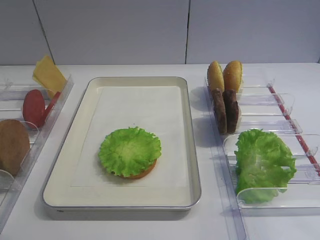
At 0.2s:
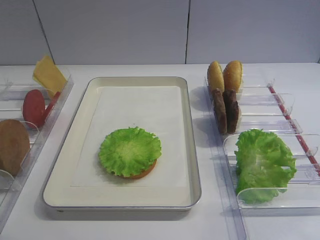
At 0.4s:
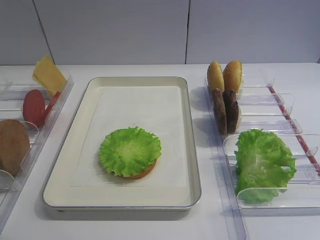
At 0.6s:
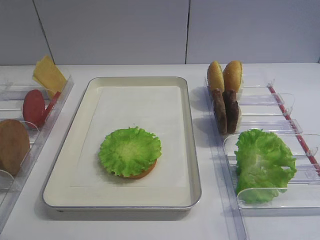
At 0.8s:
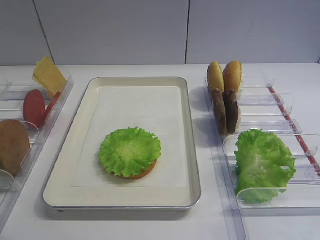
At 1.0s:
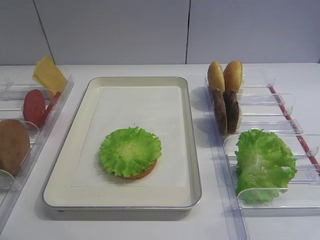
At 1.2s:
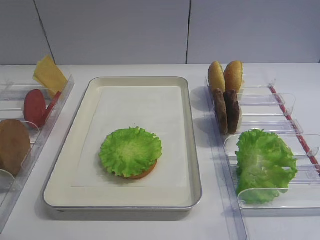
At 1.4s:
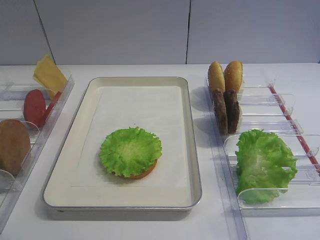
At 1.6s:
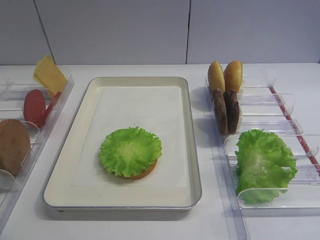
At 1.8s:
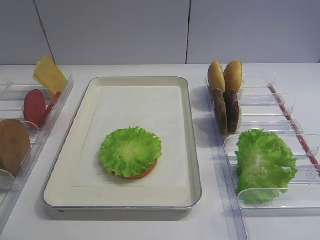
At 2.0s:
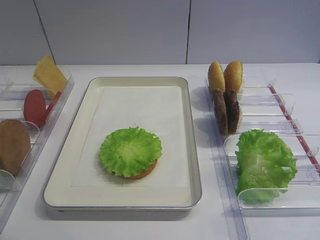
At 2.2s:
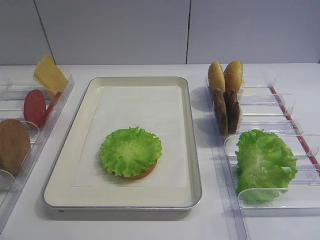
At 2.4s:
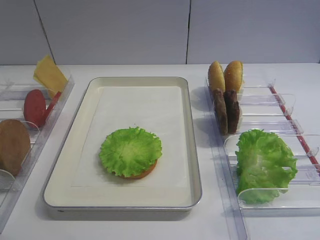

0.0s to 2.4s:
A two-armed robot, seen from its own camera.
0.0s to 1.2s: The right gripper moves downward, roughly 5 cm.
1.2s to 2.4s: Neither gripper changes place.

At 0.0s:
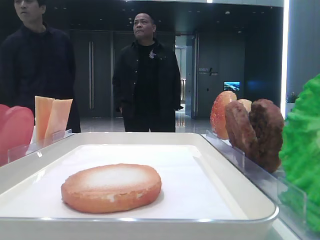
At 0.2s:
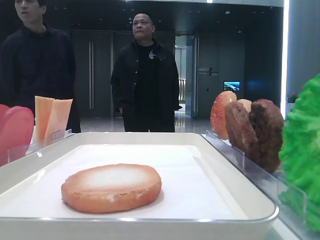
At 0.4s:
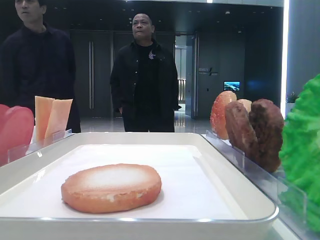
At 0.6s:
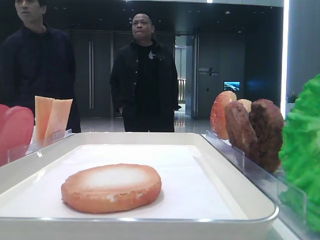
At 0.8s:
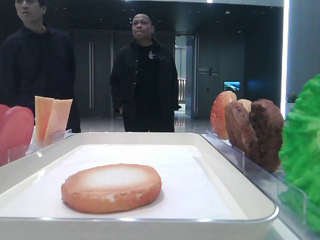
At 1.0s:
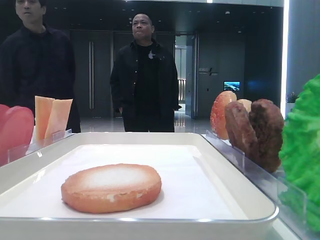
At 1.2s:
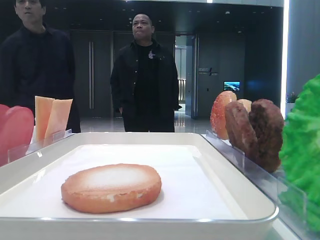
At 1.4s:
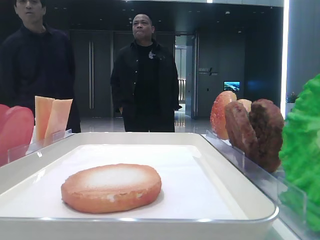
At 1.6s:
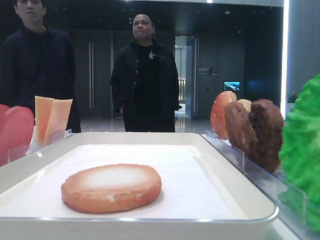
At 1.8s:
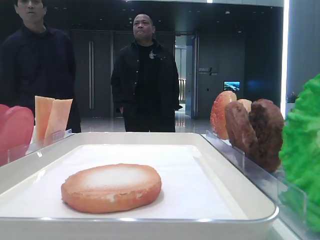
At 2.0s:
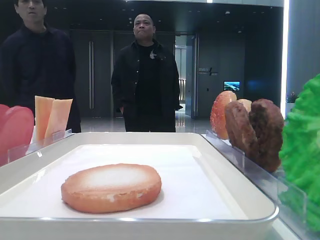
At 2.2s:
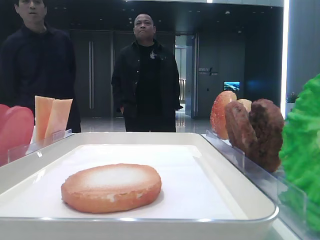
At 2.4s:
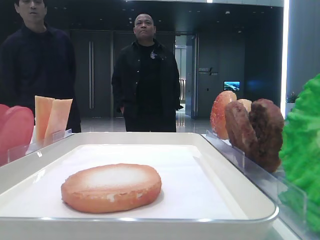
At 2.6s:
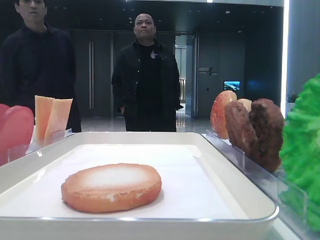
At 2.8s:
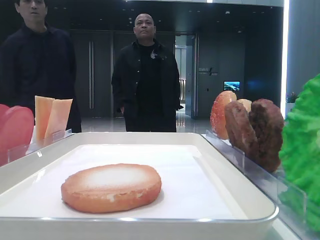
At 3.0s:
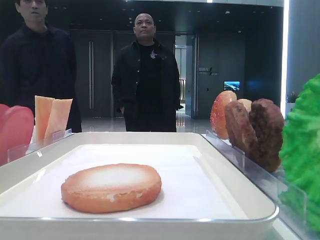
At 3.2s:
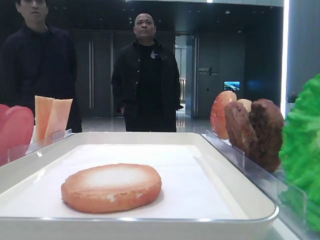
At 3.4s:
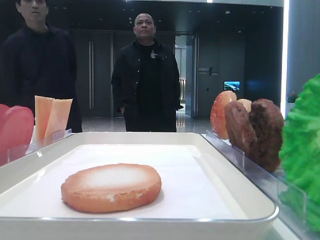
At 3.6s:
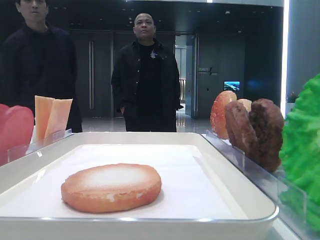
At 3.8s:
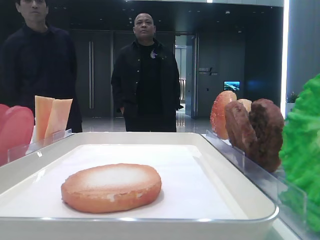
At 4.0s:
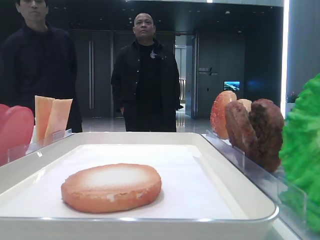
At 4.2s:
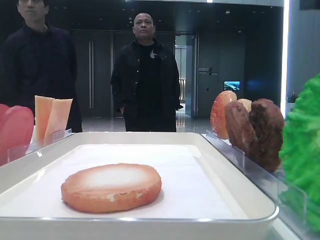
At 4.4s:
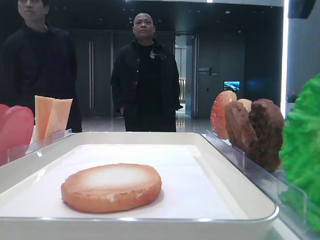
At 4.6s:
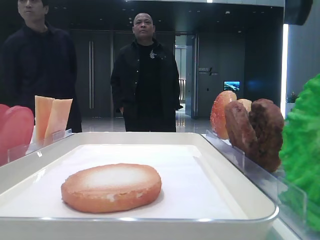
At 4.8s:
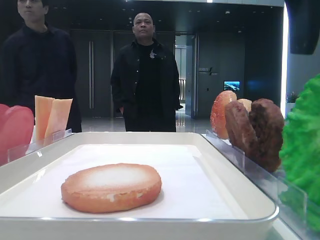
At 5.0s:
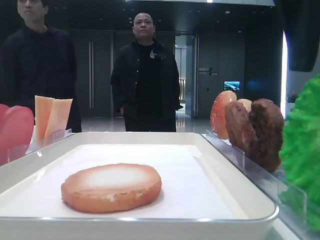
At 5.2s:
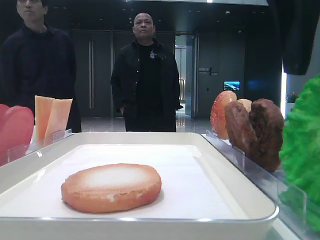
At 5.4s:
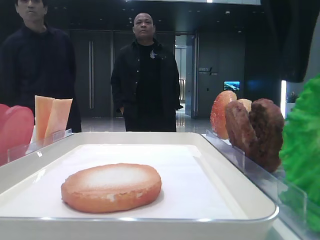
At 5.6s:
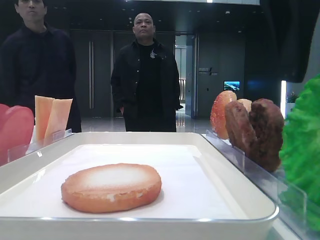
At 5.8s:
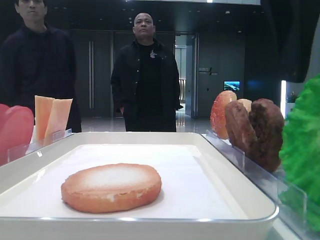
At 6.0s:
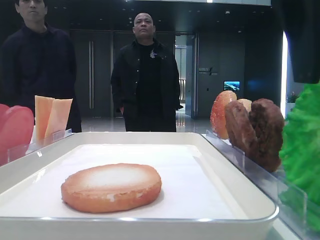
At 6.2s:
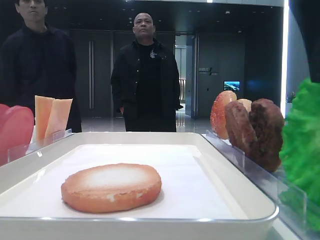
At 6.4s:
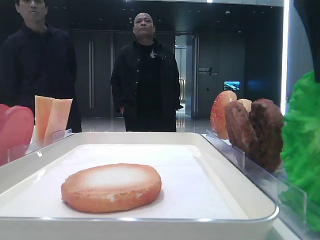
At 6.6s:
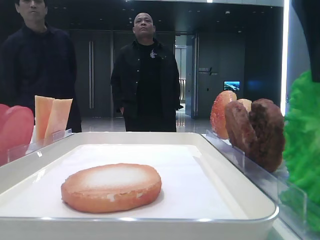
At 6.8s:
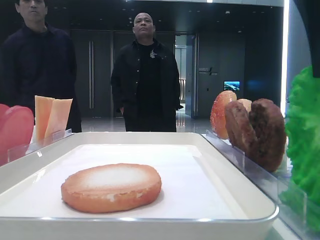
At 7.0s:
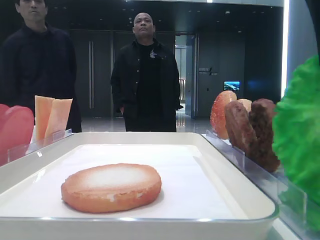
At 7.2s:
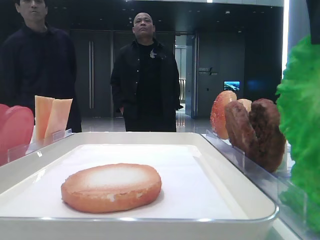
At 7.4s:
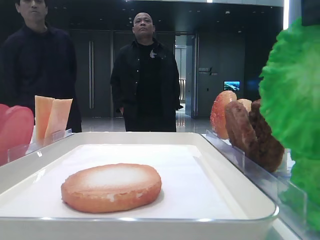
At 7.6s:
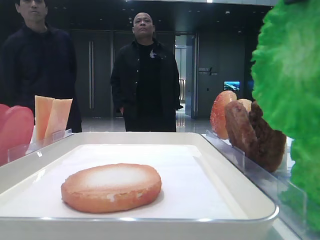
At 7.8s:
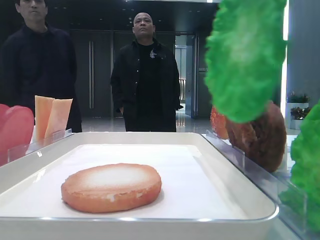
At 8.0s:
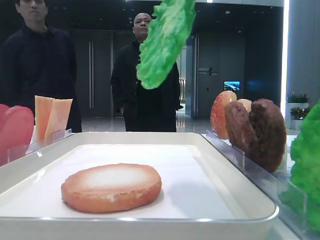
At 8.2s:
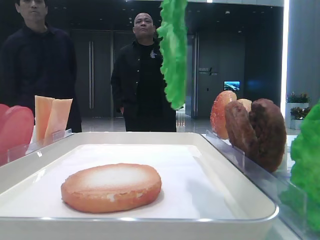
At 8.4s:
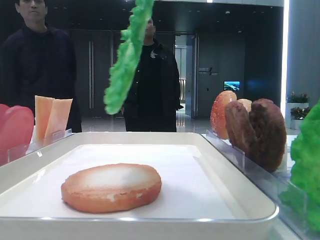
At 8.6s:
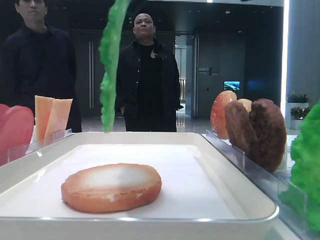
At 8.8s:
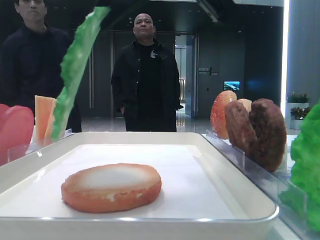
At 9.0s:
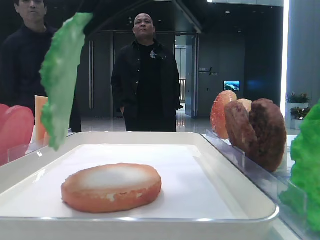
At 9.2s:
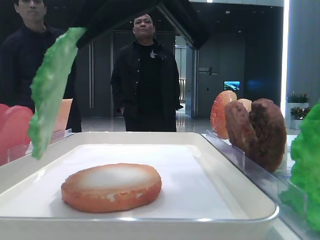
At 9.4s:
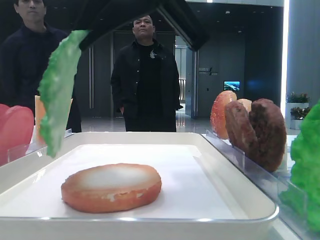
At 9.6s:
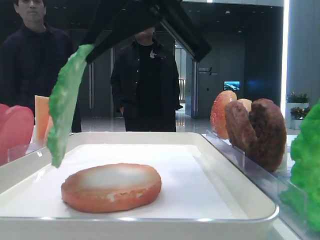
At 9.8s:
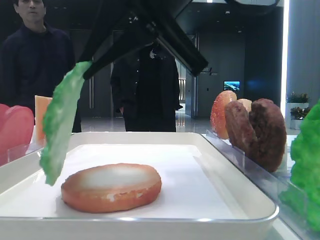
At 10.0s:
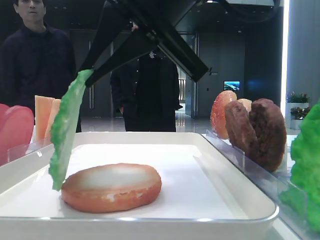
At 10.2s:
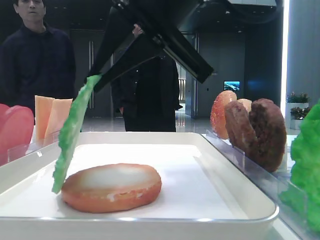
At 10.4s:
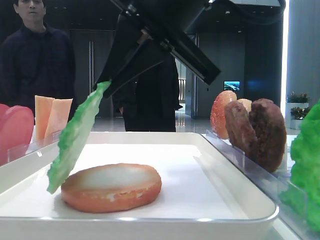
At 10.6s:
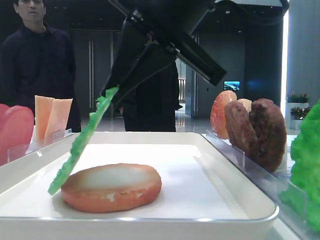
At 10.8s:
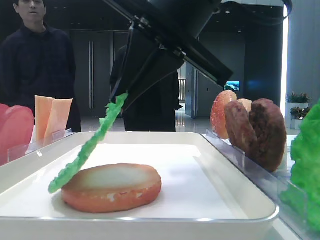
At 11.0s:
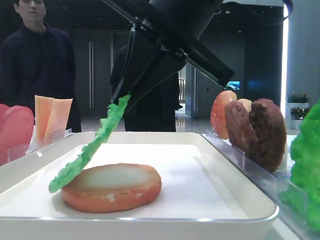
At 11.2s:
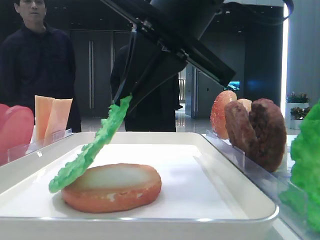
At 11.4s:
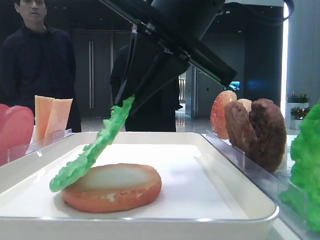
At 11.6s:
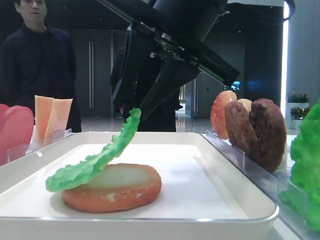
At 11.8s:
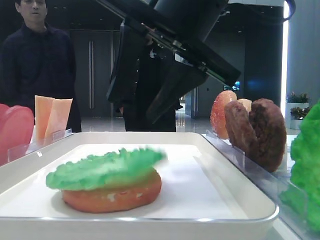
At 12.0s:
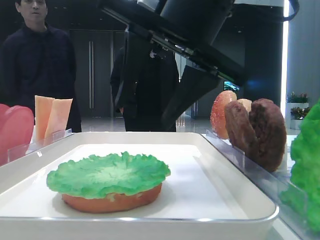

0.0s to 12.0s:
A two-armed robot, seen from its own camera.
Step, 0.0s to 6.2s: Grab the lettuce leaf with the right hand.
Step, 6.4s to 11.8s: Place the lettuce leaf on the bread slice with the right hand.
1.6s to 3.0s: The right gripper heads forward and upward, covering approximately 15 cm.
3.0s to 4.4s: The right gripper heads to the left and downward, covering approximately 15 cm.
4.4s to 6.0s: There are only small adjustments of the grippers.
6.0s to 7.6s: The right gripper is displaced upward by about 5 cm, and closes its fingers.
7.6s to 9.0s: The right gripper is displaced to the left by roughly 10 cm.
9.0s to 10.4s: The right gripper ends up some 5 cm from where it was.
10.4s to 12.0s: The right gripper opens its fingers.

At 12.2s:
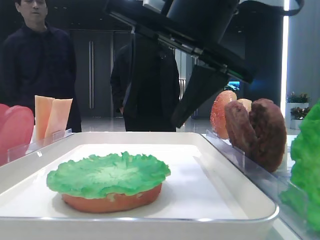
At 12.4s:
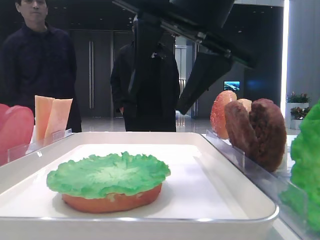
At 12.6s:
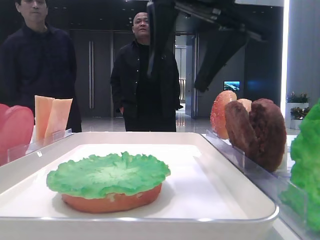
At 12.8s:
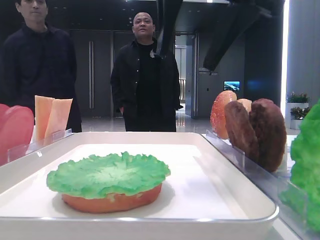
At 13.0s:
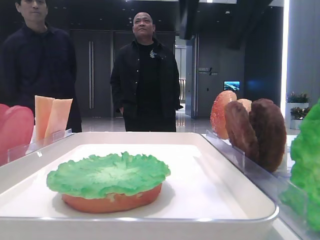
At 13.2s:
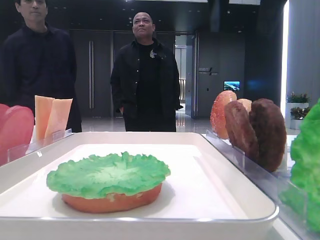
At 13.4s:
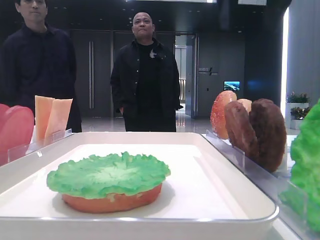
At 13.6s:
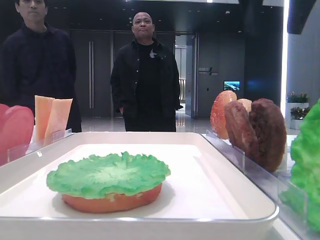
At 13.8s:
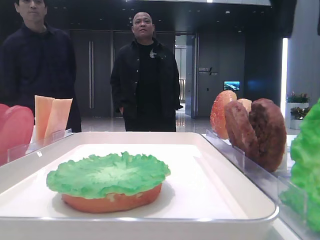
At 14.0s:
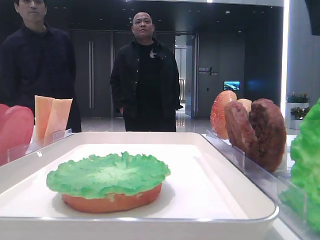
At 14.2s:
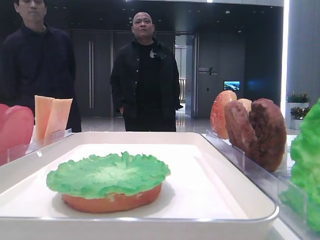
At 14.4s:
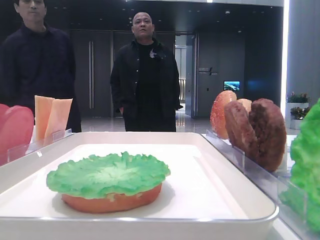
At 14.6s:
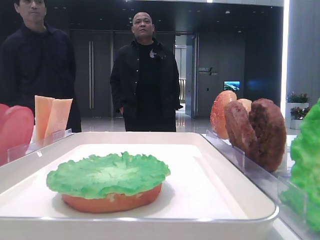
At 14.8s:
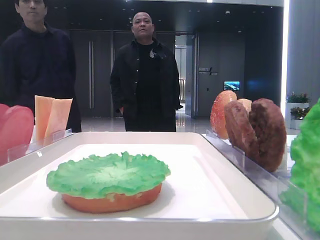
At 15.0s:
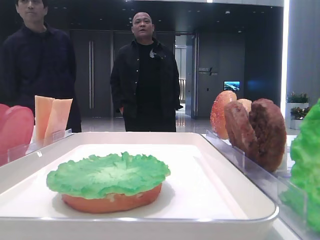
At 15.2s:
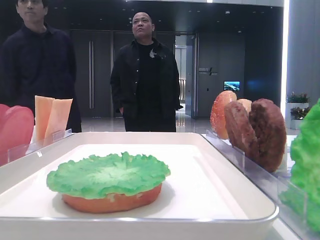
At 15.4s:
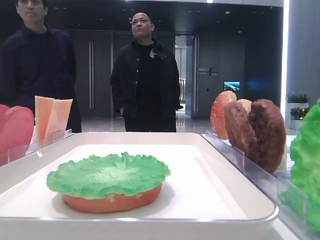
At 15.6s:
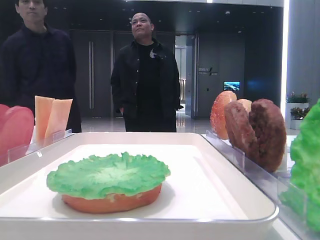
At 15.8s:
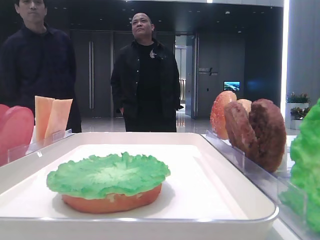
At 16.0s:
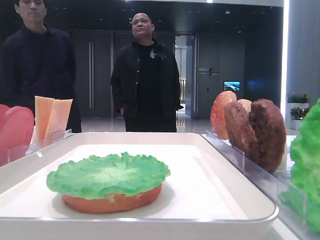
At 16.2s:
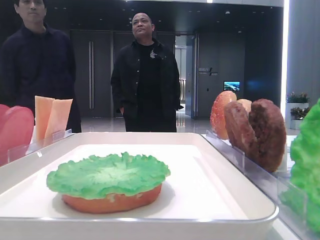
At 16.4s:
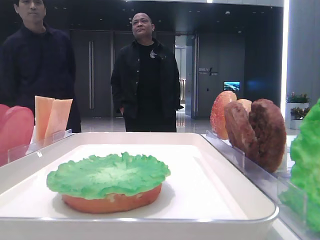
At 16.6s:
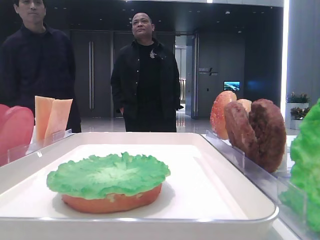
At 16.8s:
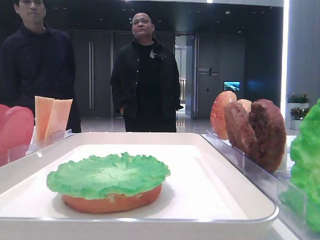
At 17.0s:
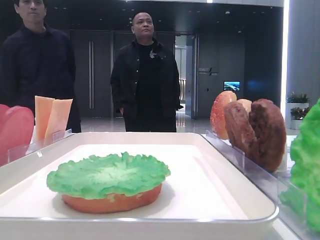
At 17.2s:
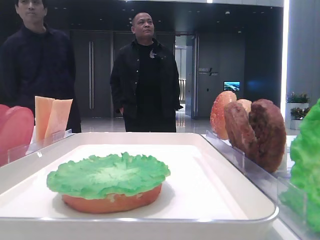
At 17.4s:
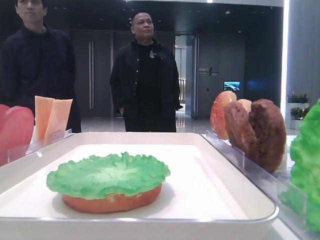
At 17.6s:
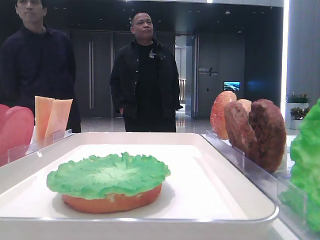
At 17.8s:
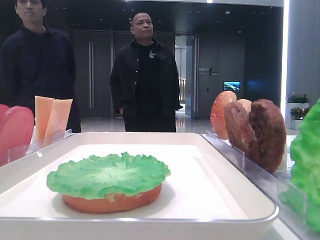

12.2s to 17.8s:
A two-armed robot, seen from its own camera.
12.2s to 13.6s: The right gripper goes approximately 15 cm upward and to the right.
13.6s to 15.0s: The right gripper heads to the right and backward, covering some 15 cm.

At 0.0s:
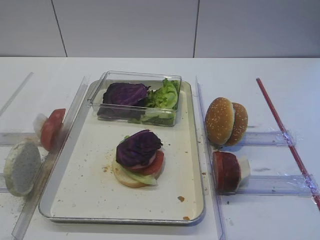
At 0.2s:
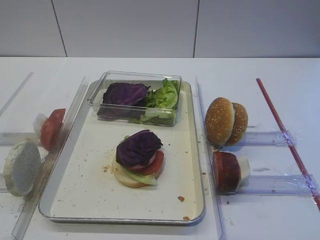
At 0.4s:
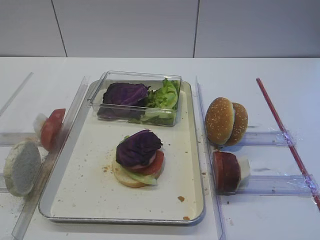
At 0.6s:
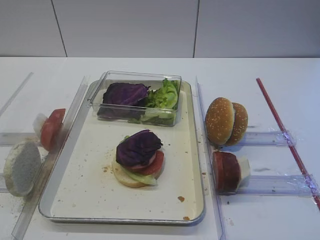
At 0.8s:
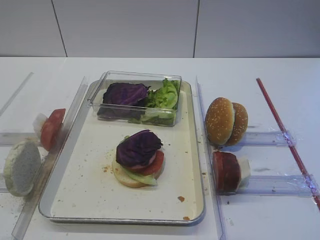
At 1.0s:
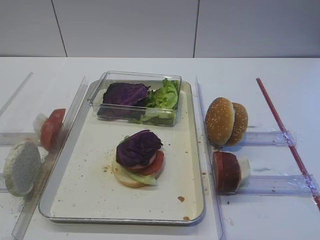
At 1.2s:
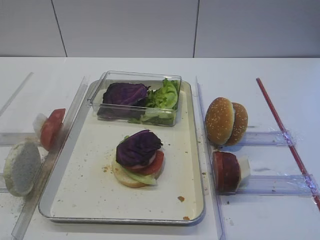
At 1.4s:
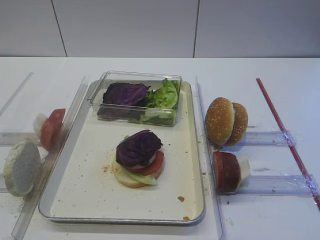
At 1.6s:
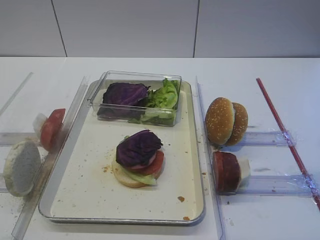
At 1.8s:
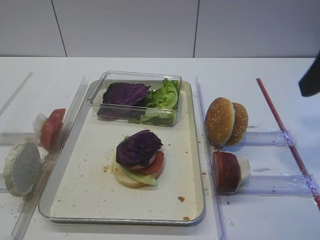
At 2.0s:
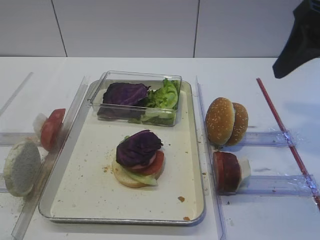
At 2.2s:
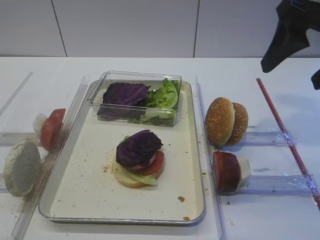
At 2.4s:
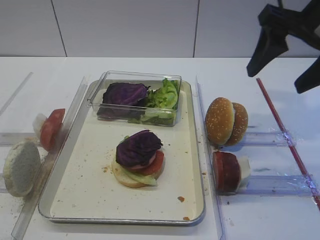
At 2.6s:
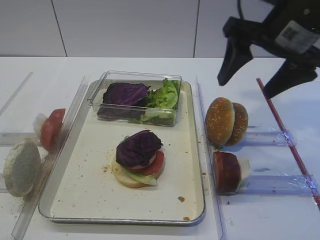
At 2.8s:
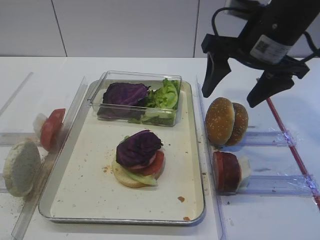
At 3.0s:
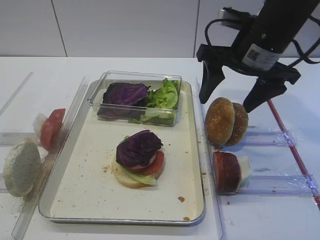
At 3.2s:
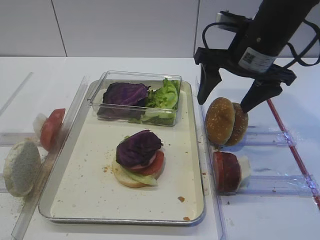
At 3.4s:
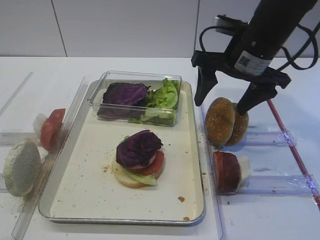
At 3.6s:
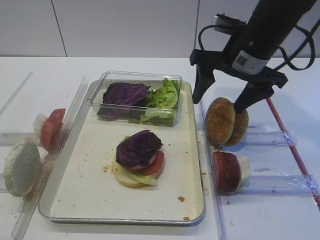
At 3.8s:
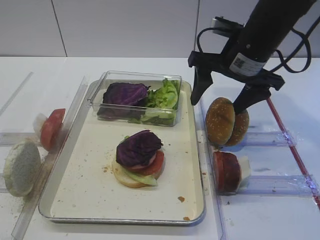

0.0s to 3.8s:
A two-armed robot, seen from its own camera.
1.2s to 2.6s: The right gripper is displaced forward by roughly 25 cm.
2.6s to 3.8s: The right gripper heads downward, covering some 5 cm.
